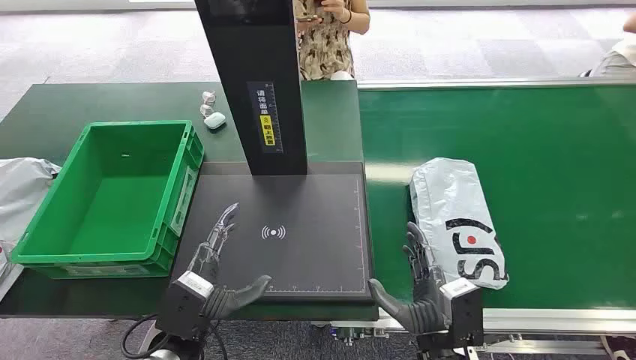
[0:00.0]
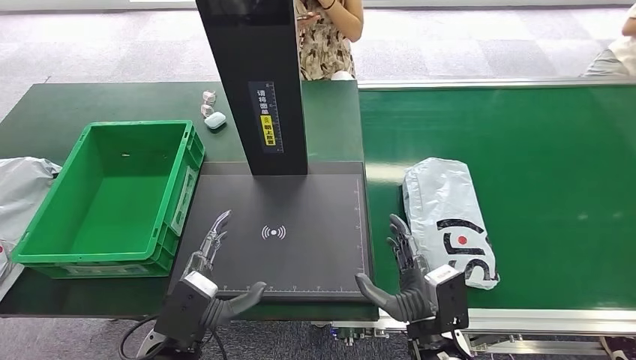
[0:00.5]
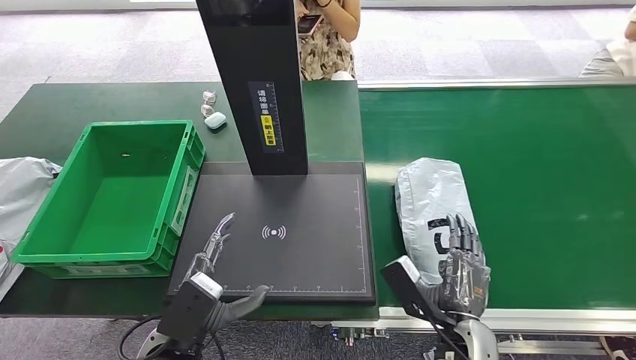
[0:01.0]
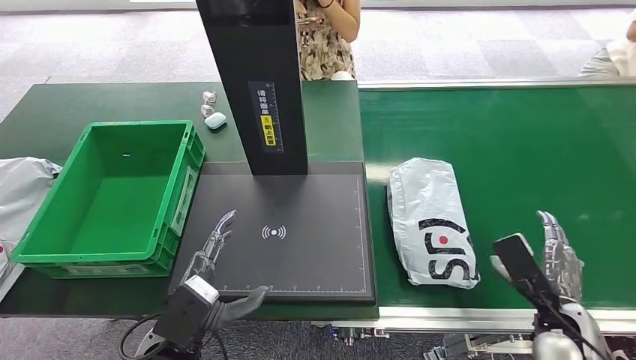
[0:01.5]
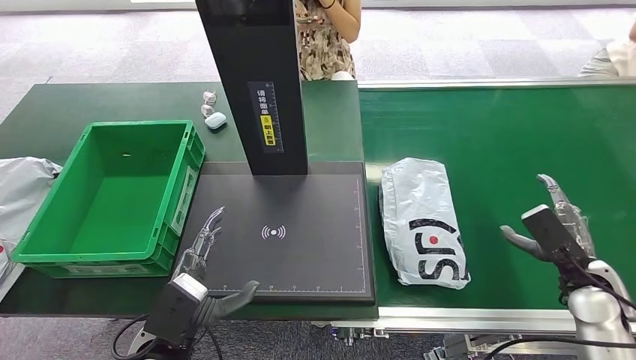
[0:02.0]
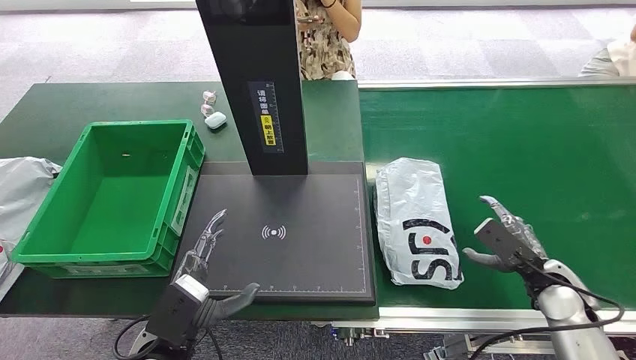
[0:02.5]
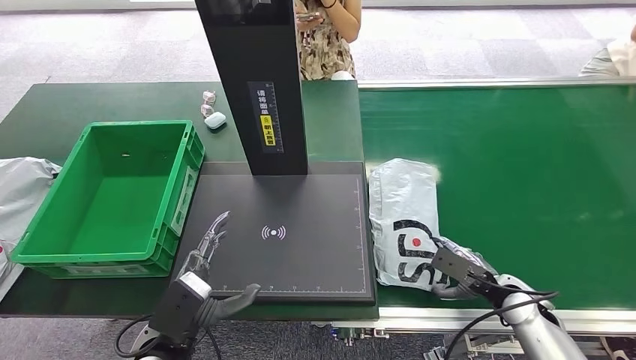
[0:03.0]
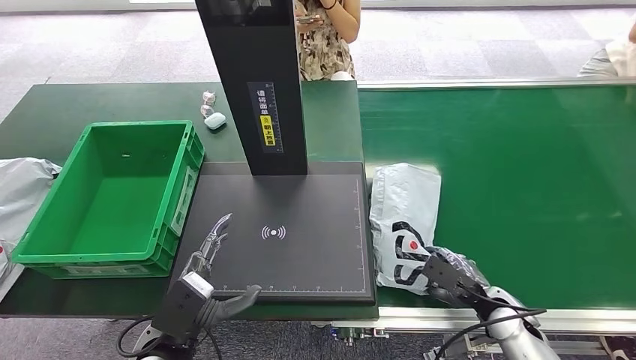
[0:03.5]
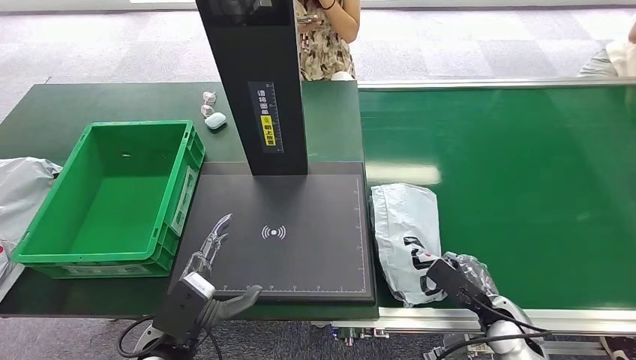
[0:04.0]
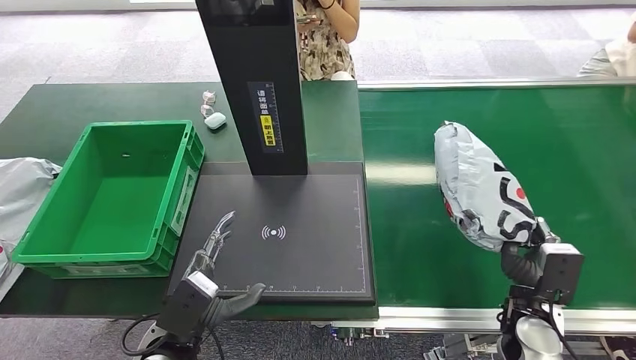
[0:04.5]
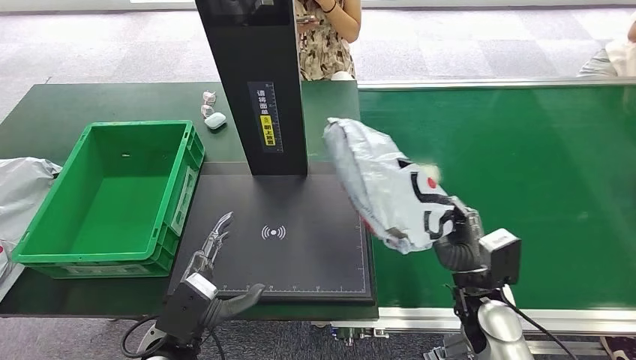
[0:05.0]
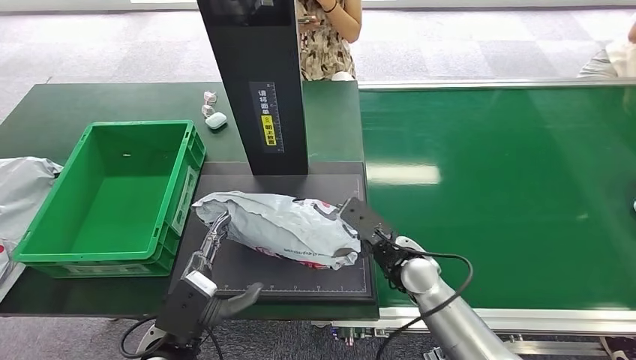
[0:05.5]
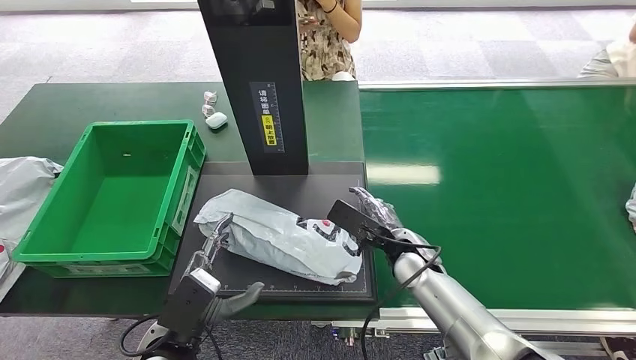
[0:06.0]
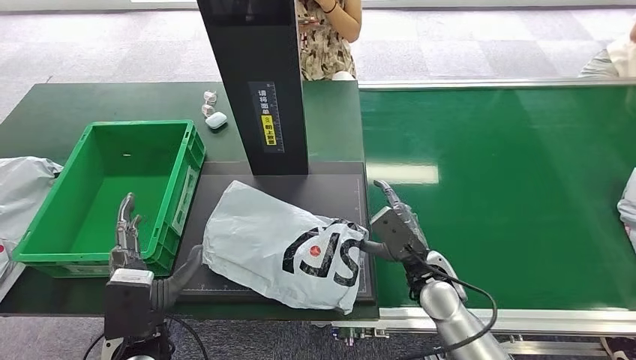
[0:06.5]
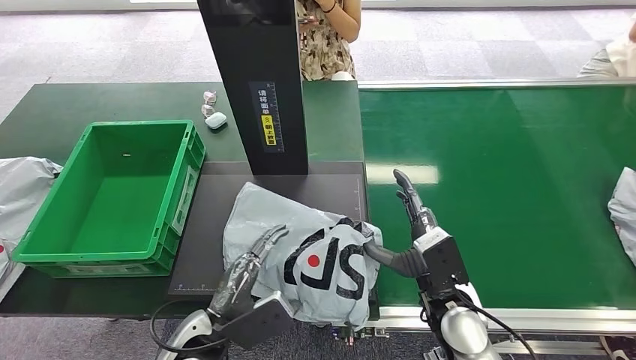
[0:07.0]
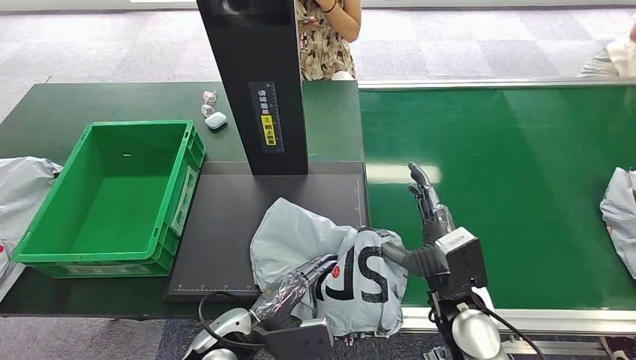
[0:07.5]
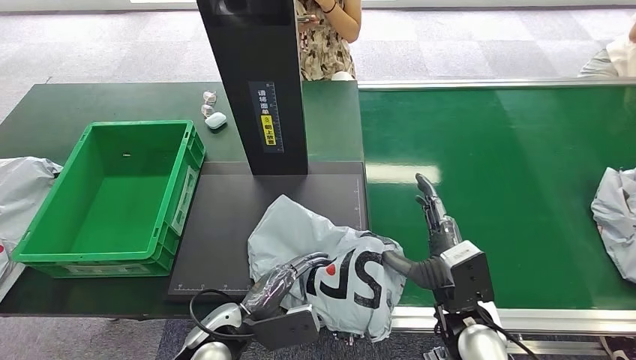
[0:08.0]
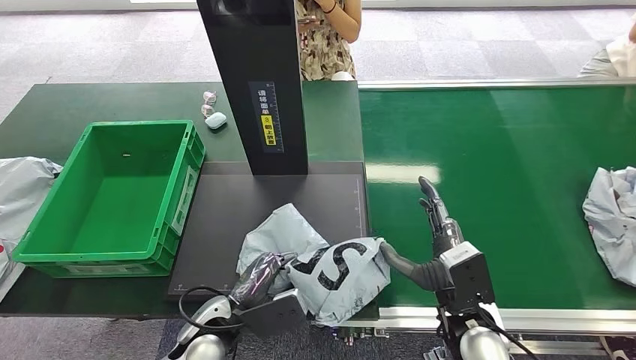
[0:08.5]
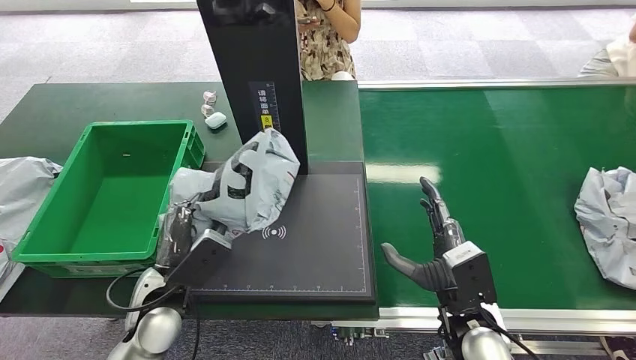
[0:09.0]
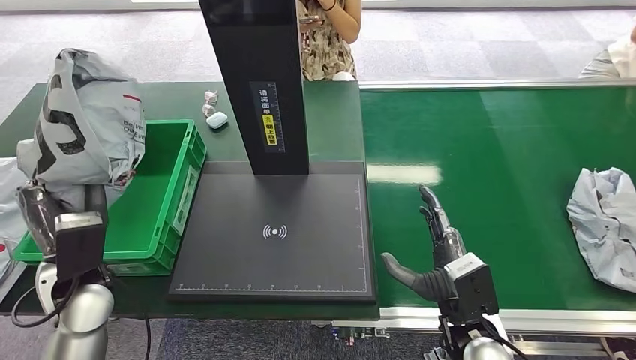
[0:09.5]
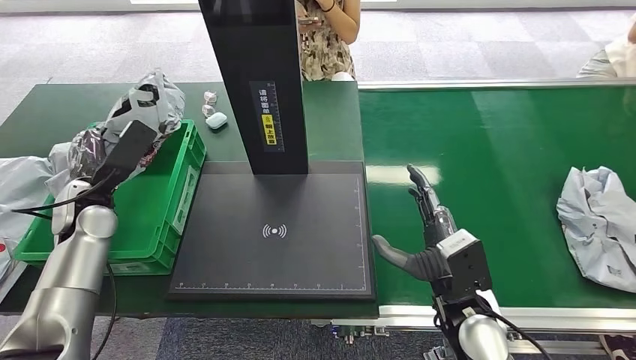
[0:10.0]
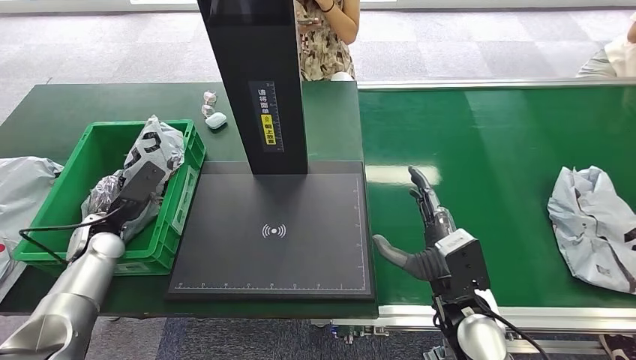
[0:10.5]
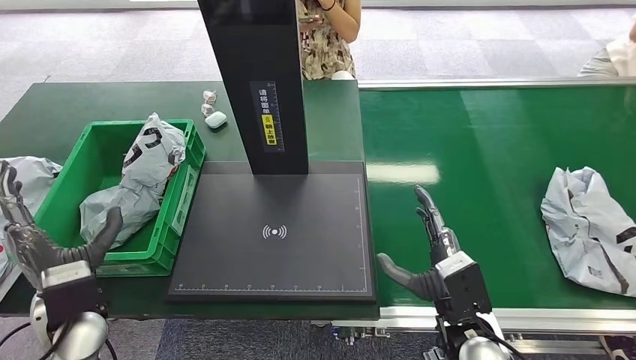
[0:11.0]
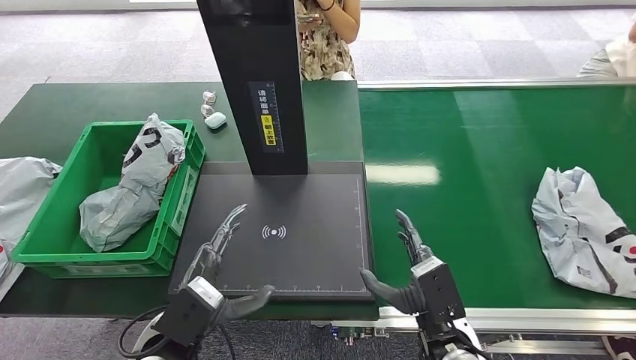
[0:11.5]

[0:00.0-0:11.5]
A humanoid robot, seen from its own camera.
Step, 0:00.0 to 0:04.0: Pick up the package from the conveyor belt.
Step, 0:05.0 to 0:06.5: Place the package onto the inbound machine.
Step, 0:07.0 to 0:09.5: Pick up the package from the inbound machine.
Step, 0:10.0 to 0:11.5: Place the package into the parcel locker.
0:02.0 to 0:04.0: The right hand is displaced downward and to the left by some 15 cm.
0:04.0 to 0:06.0: The right hand moves to the left, forward and upward, roughly 25 cm.
0:06.0 to 0:07.5: The left hand shifts some 10 cm to the right. Meanwhile the right hand heads backward, covering some 10 cm.
